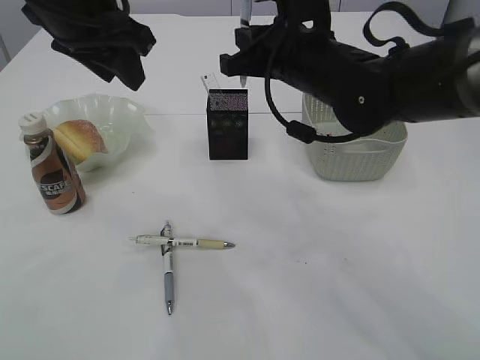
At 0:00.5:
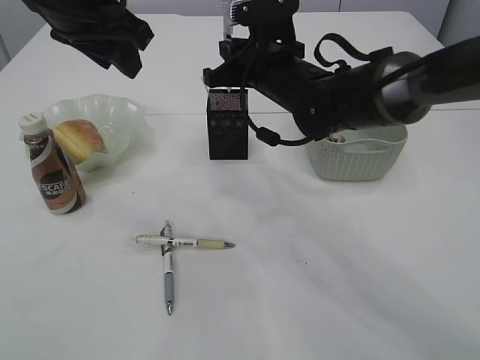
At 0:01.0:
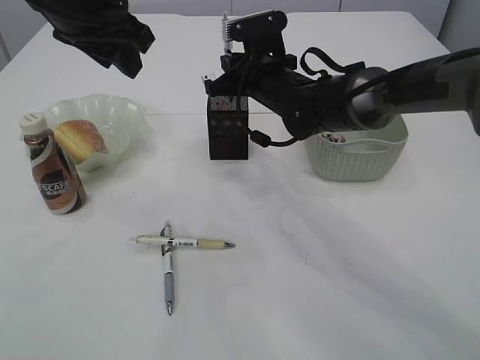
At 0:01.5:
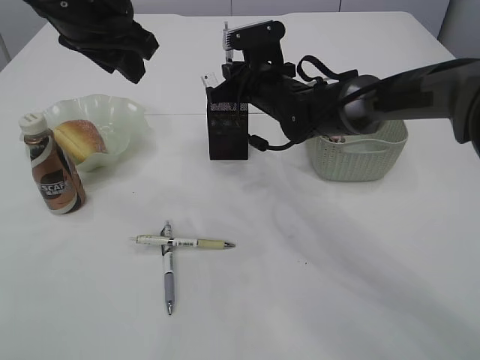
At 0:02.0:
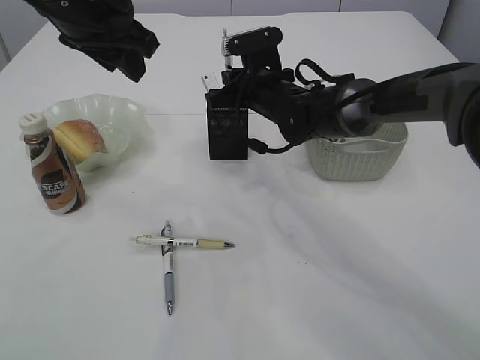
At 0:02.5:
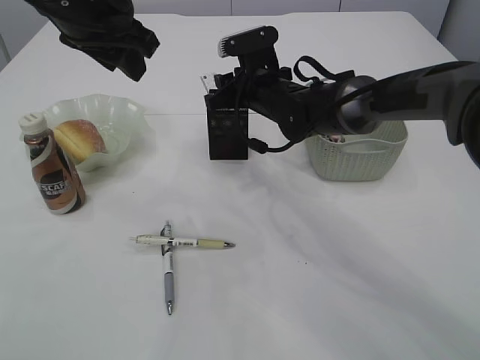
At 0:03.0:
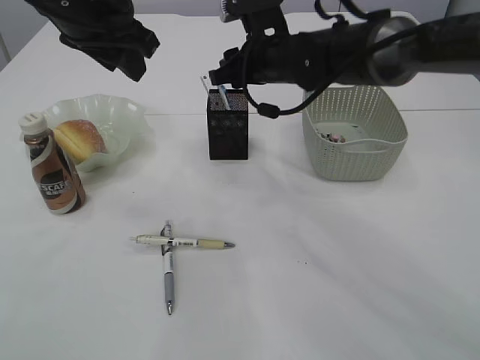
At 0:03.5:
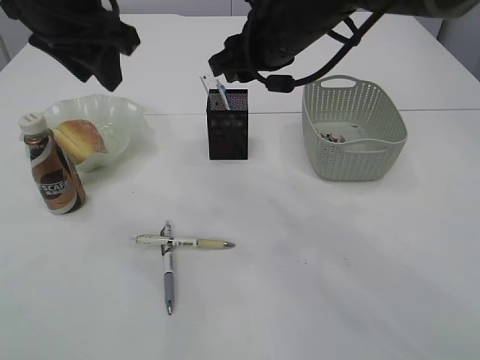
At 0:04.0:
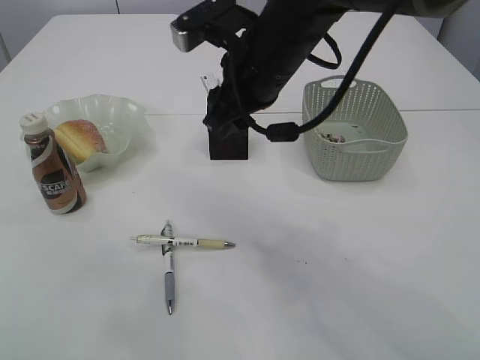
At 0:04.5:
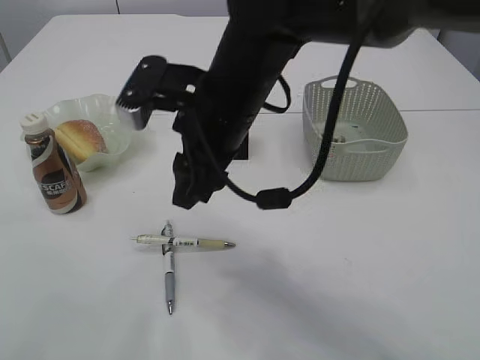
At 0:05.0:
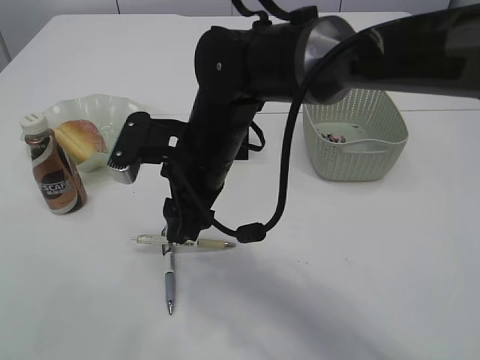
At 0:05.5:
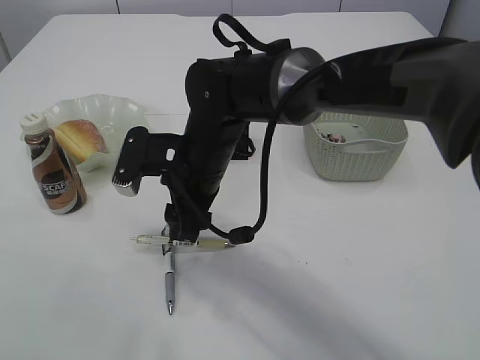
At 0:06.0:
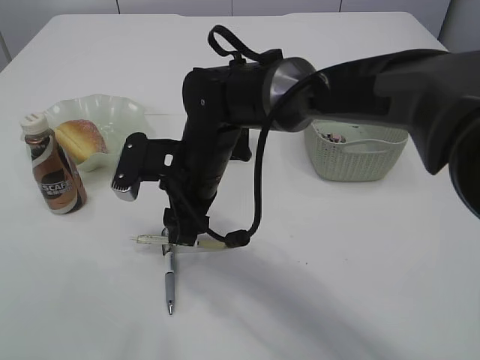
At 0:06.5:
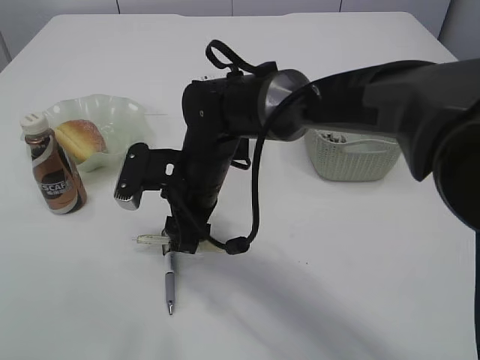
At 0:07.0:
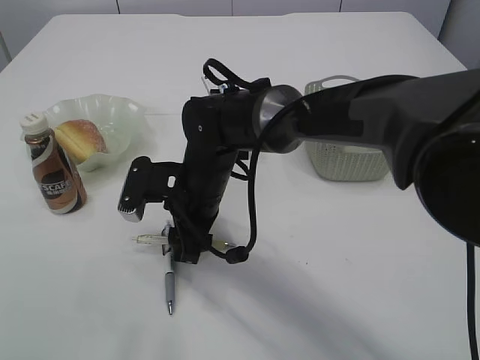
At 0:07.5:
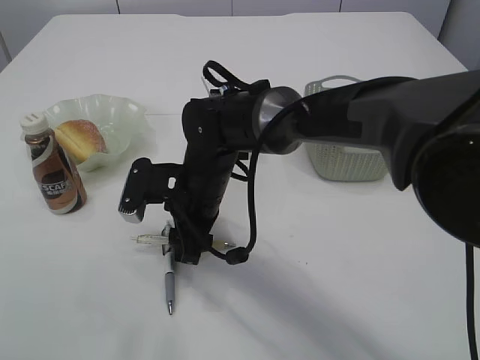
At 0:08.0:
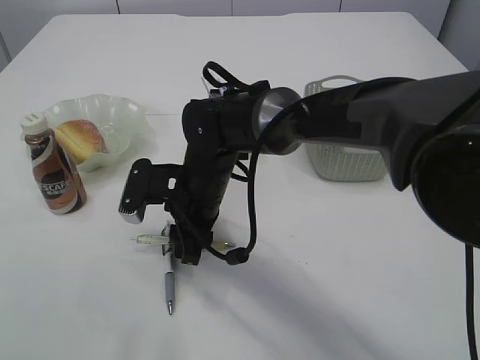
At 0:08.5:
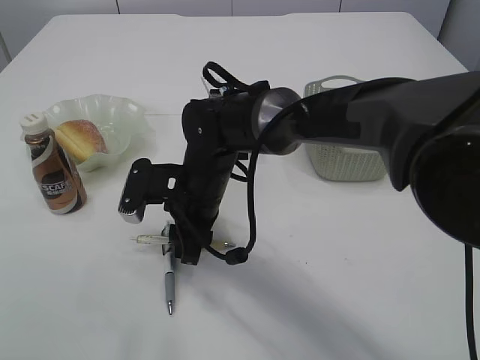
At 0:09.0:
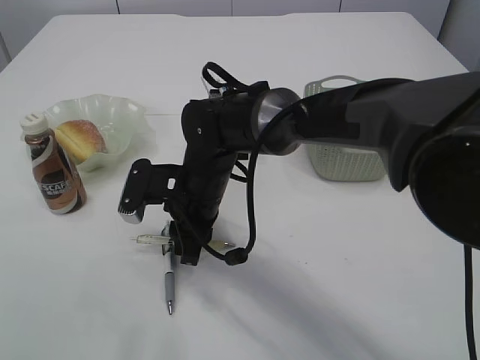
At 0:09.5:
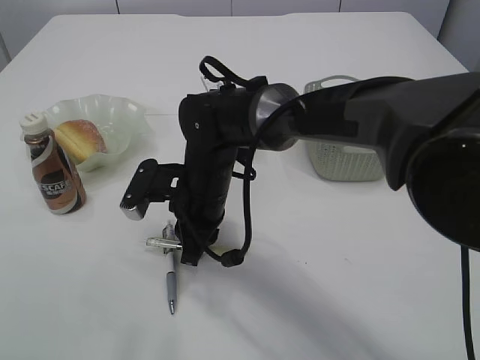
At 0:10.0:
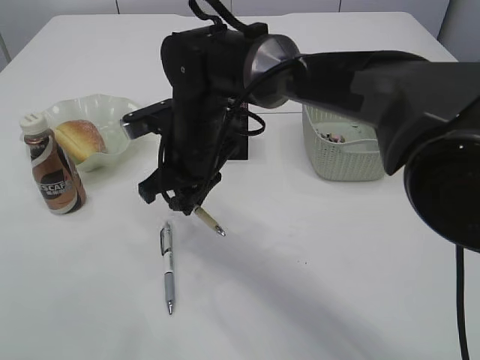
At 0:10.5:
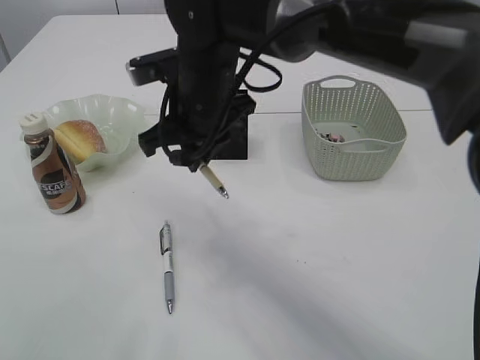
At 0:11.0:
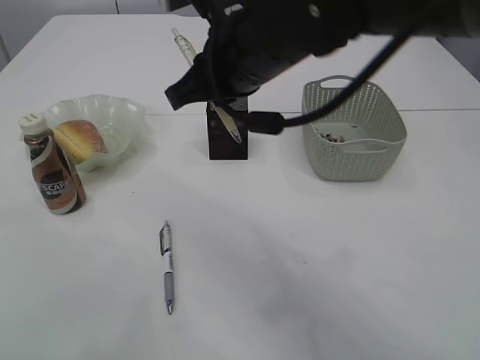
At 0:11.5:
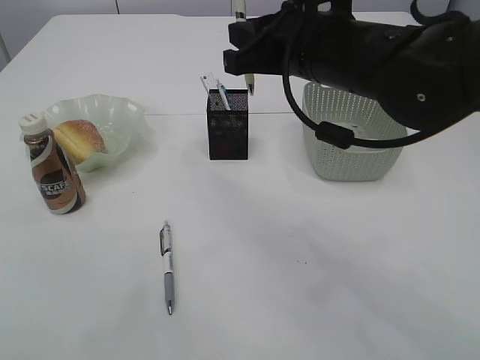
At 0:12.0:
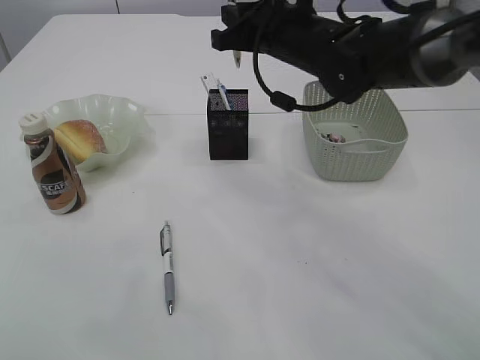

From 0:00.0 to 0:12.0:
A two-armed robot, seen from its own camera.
Step, from 0:00.0 to 0:03.0: Place the pen into the pen holder.
Step, from 0:03.5 to 0:09.5: Pick up the pen with right arm.
From 0:00.0 to 0:02.0: The right gripper moves forward and downward, some 15 cm.
From 0:02.0 to 0:04.0: The right gripper travels backward and upward by about 15 cm, and opens its fingers, while the left gripper goes some 15 cm upward and backward.
From 0:04.0 to 0:06.0: The right gripper moves downward and to the left, about 15 cm, while the left gripper goes about 10 cm backward and upward.
From 0:06.0 to 0:08.0: There are only small adjustments of the grippers.
From 0:08.0 to 0:10.0: The right gripper goes some 5 cm upward, and closes its fingers.
From 0:10.0 to 0:12.0: The right gripper travels to the right, upward and forward by roughly 15 cm. The left gripper moves forward, roughly 5 cm.

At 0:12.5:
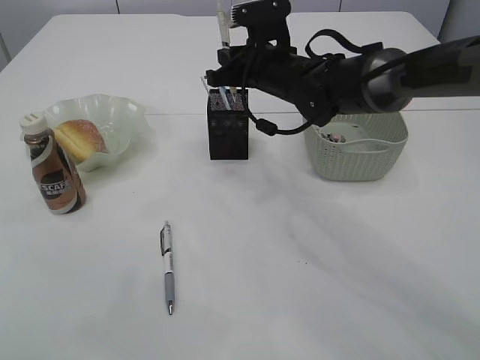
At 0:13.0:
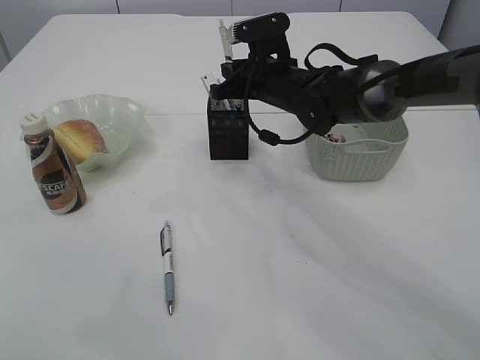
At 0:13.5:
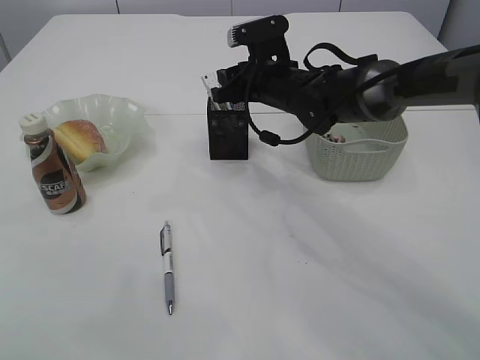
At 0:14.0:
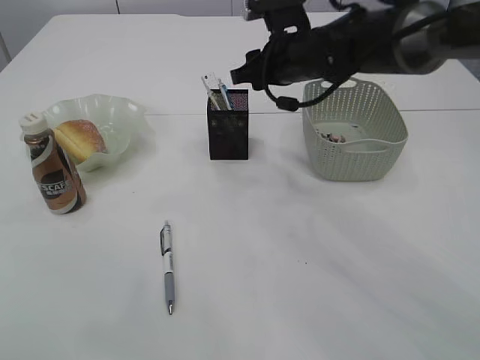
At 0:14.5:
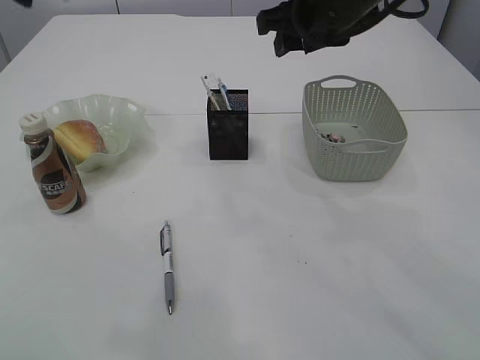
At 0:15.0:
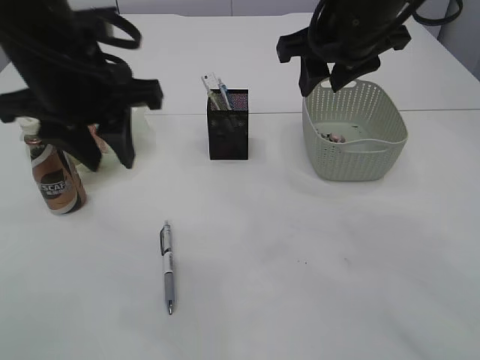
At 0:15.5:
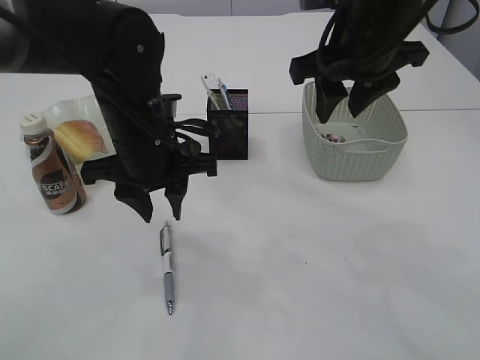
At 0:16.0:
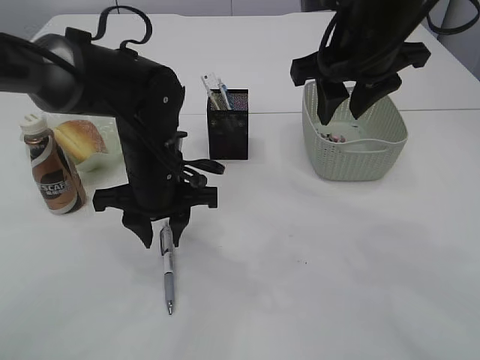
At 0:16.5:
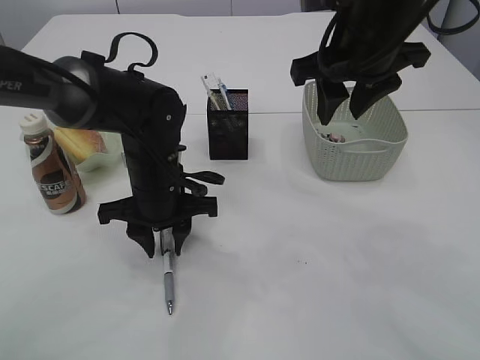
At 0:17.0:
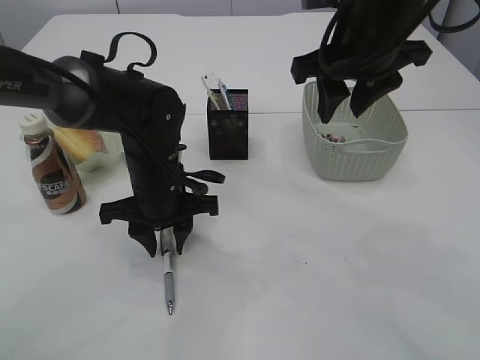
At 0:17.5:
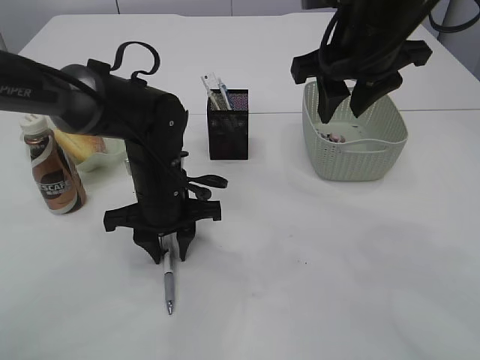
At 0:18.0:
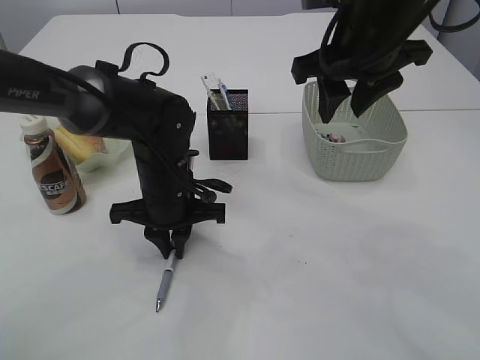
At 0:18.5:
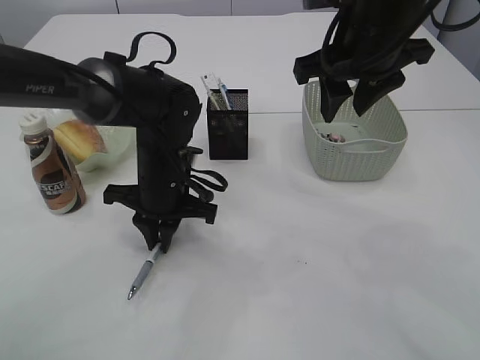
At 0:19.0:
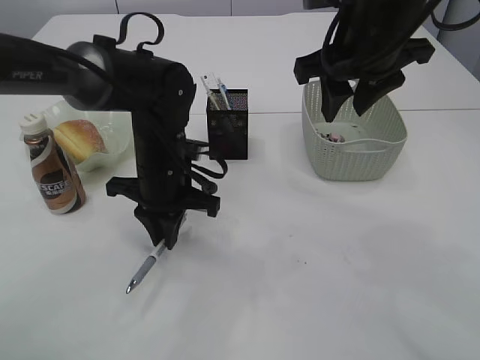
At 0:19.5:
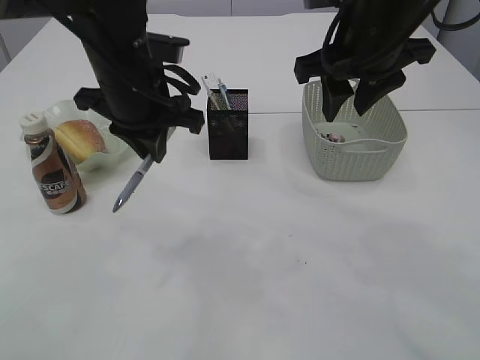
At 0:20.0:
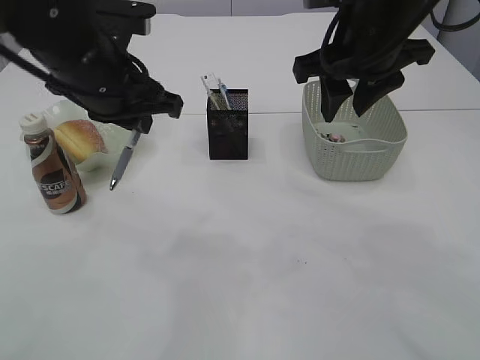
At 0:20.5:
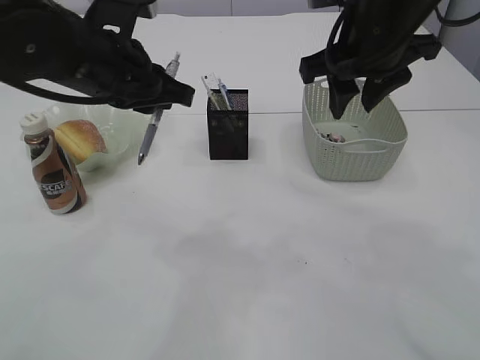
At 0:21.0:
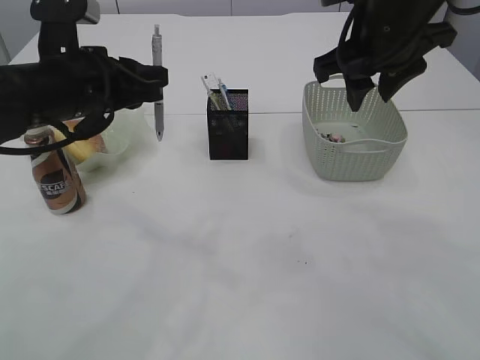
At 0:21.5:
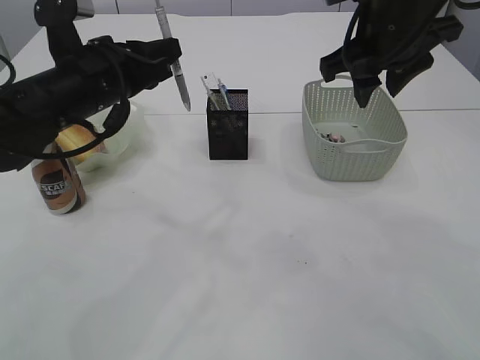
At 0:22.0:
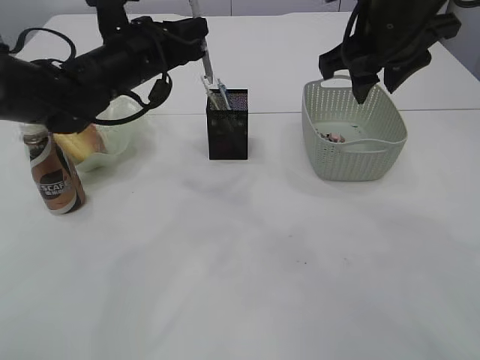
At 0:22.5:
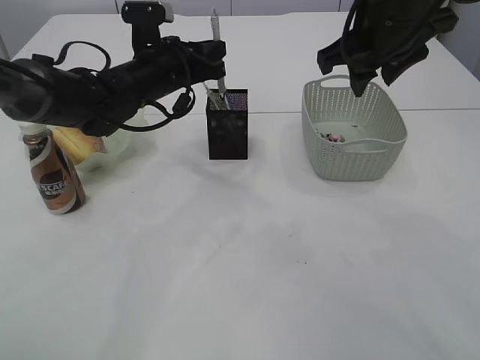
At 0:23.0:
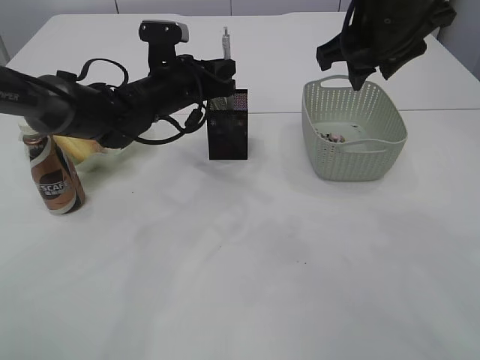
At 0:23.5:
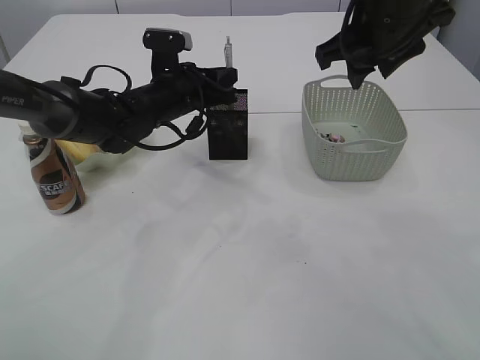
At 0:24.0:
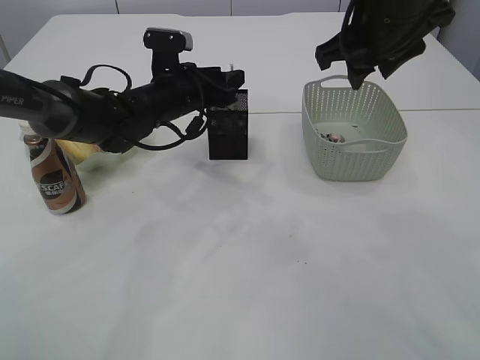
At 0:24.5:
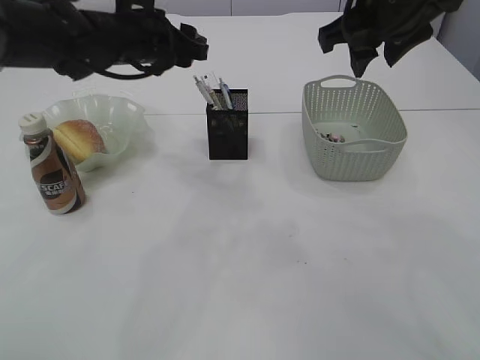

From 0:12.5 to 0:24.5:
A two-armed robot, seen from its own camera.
Step, from 0:14.5 to 0:19.0: Pick up the pen with left arm.
From 0:12.5 to 0:14.5: The right gripper travels upward and backward by roughly 15 cm, and opens its fingers.
From 0:14.5 to 0:16.5: The left gripper goes about 30 cm downward. Meanwhile the right gripper shifts by approximately 5 cm.
From 0:16.5 to 0:18.5: The left gripper closes.
From 0:18.5 to 0:20.5: The left gripper goes some 15 cm upward.
From 0:20.5 to 0:22.5: The left gripper is displaced forward and downward by about 15 cm.
From 0:22.5 to 0:24.5: The left gripper opens its fingers.

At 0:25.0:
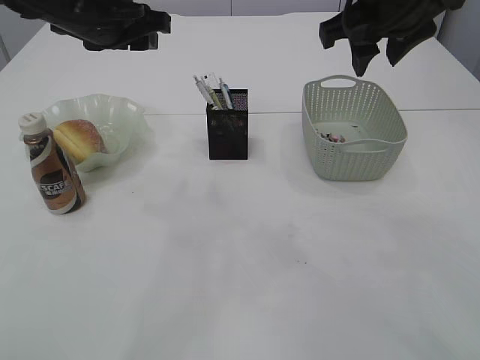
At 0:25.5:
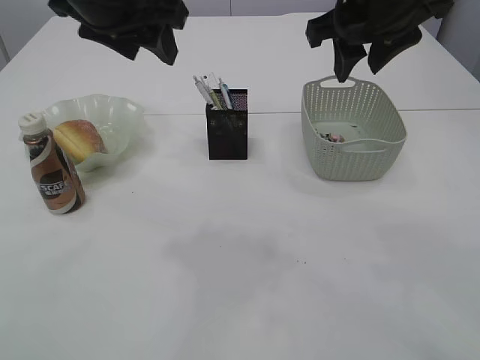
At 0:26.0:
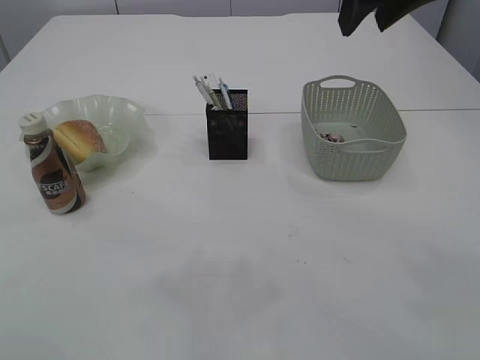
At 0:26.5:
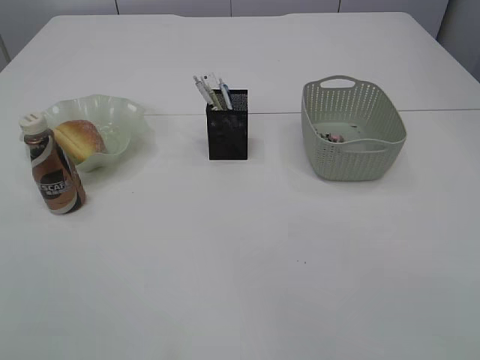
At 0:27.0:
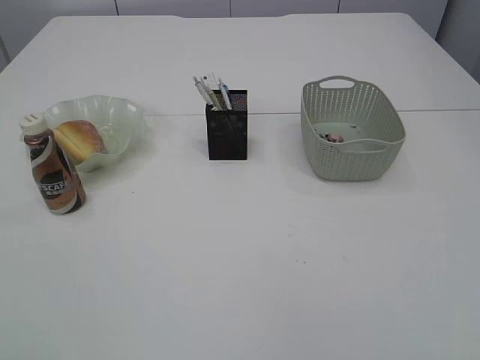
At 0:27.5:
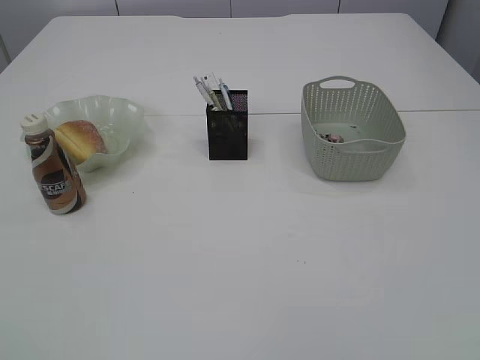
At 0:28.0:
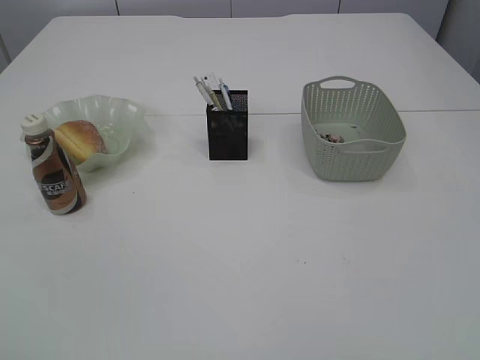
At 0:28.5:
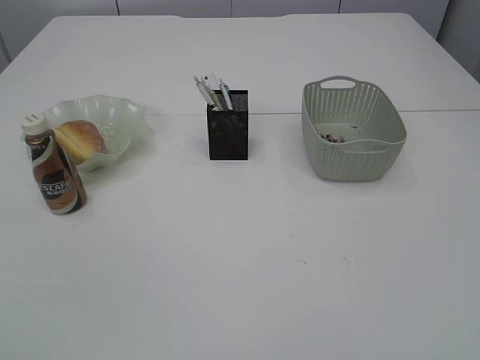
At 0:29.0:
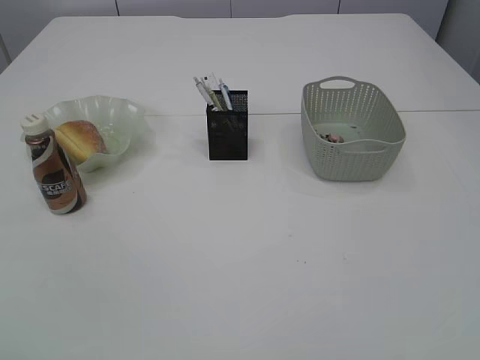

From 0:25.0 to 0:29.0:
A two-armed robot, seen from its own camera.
From 0:25.0 to 0:27.0: The left gripper is displaced backward and upward by some 35 cm. The right gripper goes approximately 35 cm backward.
